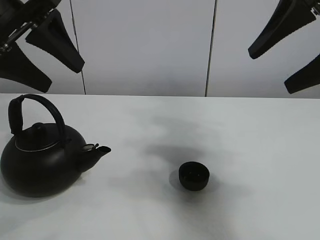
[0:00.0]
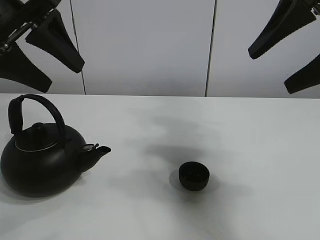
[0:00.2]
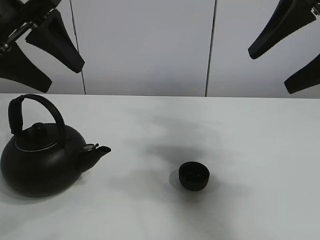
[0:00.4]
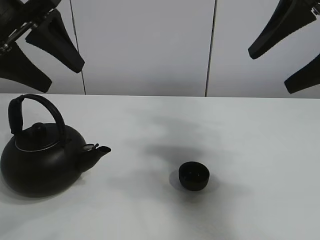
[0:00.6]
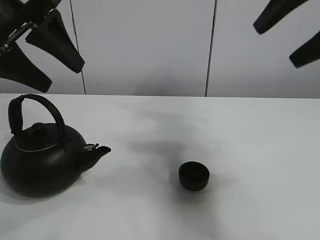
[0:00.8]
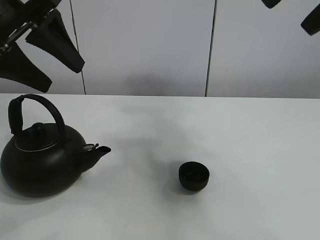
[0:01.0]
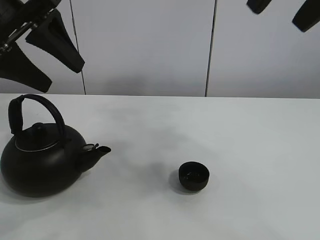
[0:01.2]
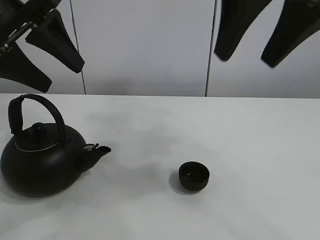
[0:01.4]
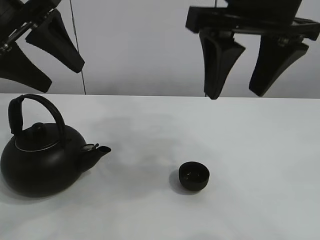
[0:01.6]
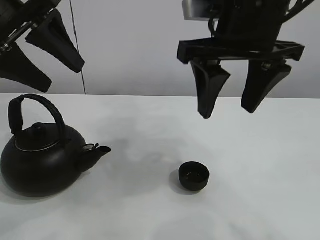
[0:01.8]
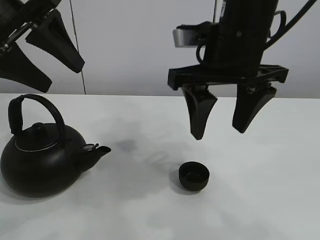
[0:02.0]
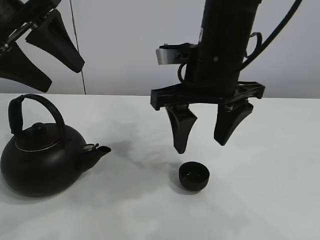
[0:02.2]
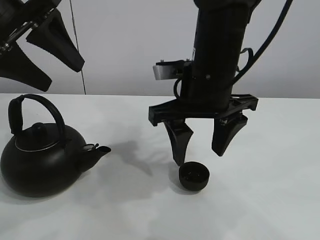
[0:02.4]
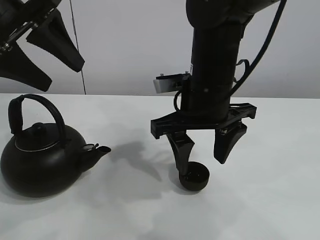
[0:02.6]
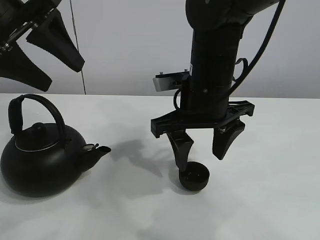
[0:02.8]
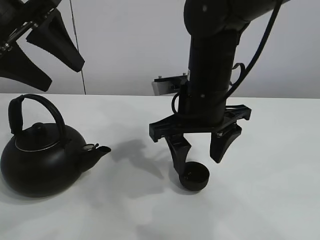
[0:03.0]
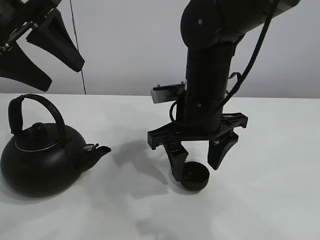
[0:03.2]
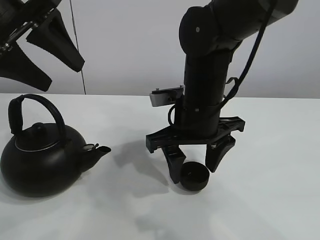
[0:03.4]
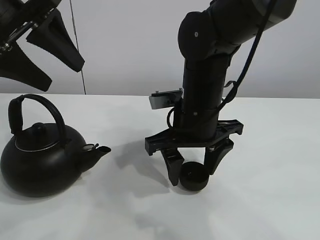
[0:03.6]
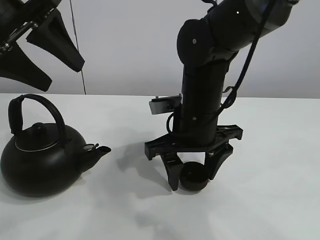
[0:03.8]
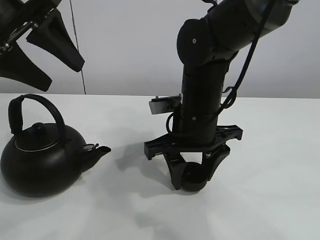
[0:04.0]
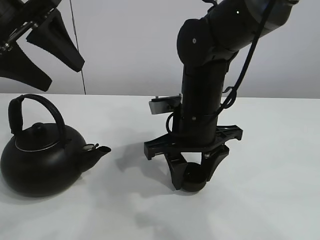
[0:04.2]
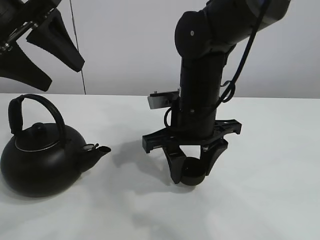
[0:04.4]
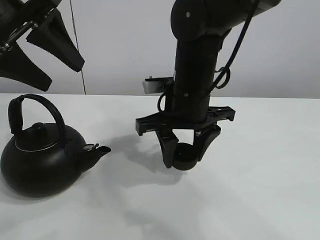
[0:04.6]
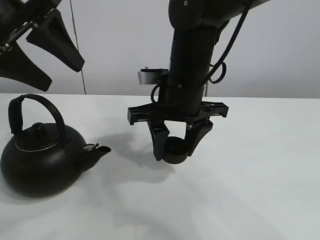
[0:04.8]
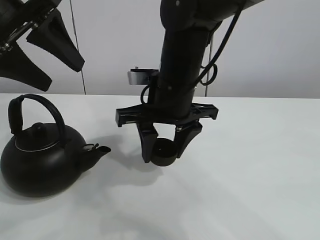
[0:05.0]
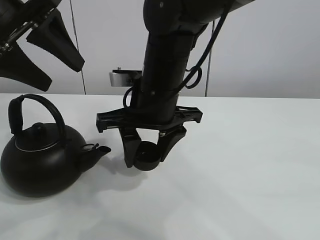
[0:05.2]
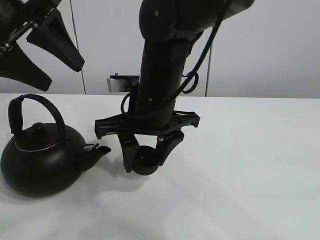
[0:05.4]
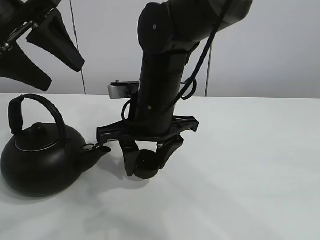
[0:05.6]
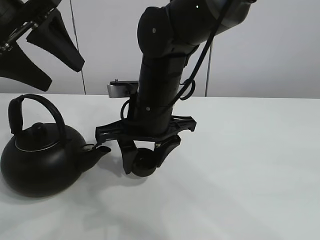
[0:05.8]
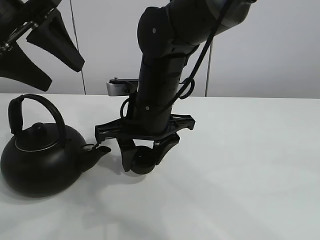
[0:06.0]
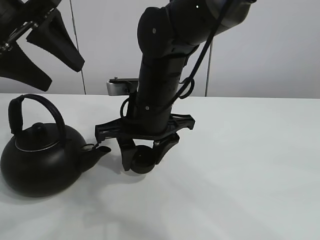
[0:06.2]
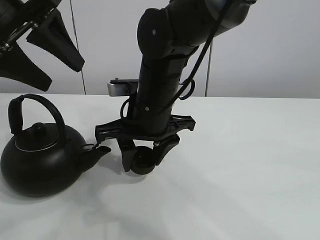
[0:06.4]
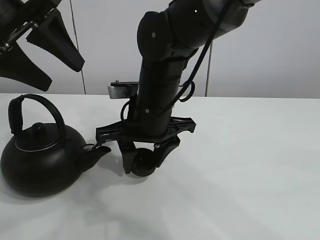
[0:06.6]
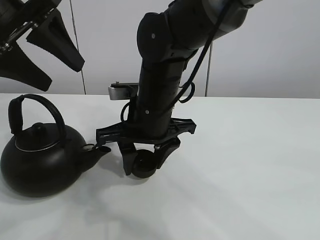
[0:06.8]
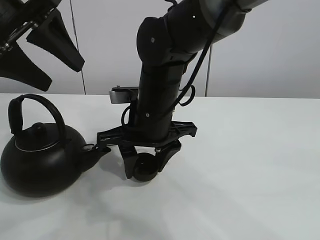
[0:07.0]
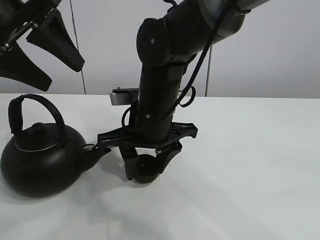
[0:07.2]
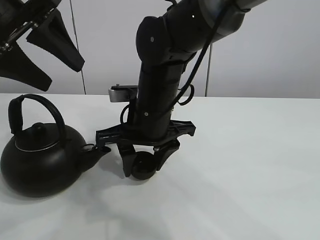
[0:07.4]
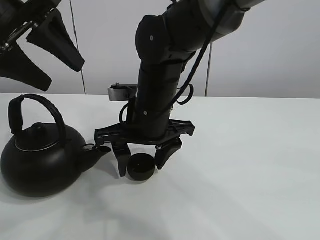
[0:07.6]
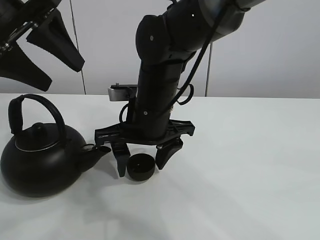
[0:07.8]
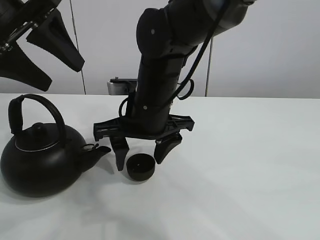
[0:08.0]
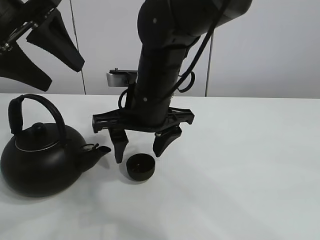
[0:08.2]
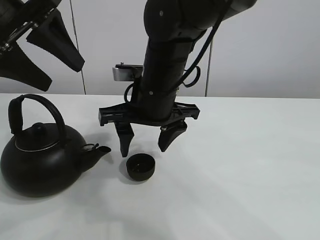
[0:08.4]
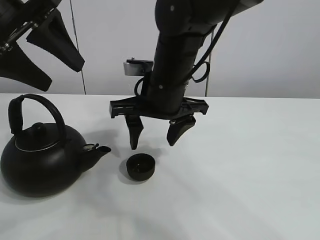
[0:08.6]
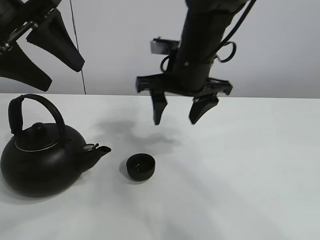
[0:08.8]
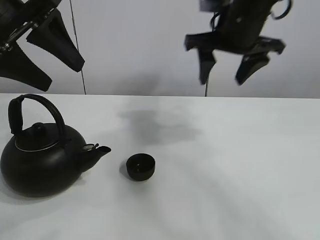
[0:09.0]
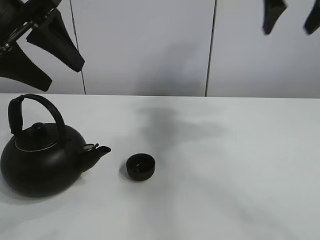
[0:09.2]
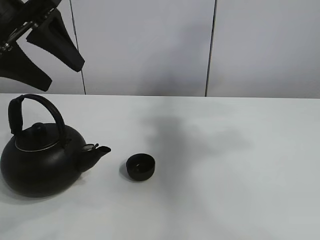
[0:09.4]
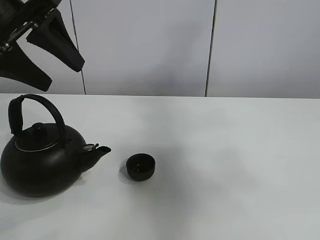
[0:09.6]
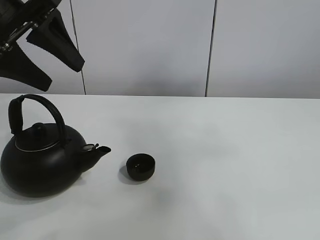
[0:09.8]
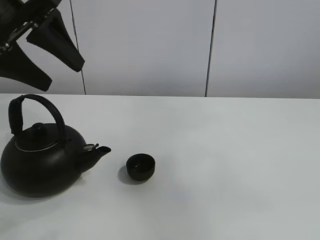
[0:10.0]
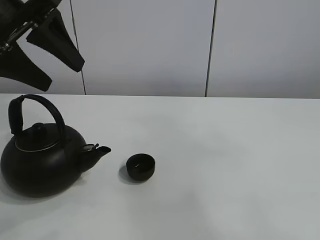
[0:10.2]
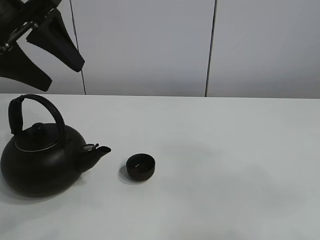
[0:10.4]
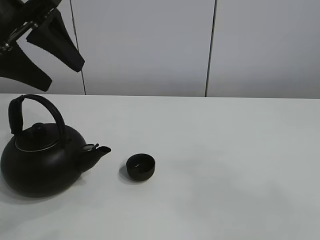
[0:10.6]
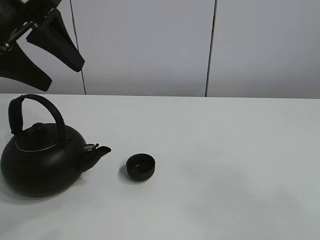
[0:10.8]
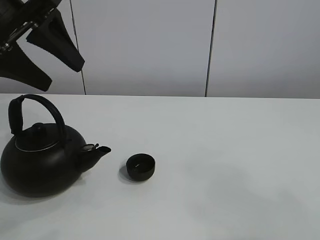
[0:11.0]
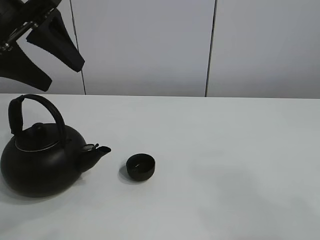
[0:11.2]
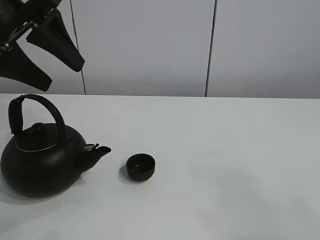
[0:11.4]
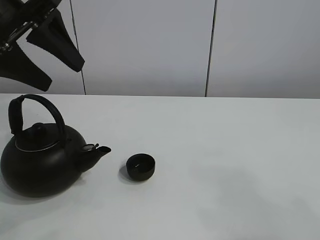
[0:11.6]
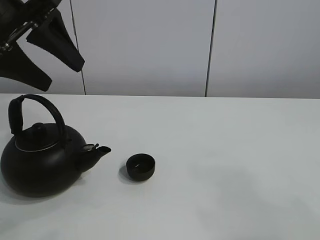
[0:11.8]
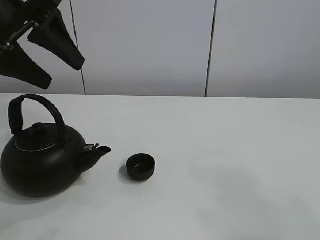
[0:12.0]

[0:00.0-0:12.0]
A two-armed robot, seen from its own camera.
Task of the whole recording: pour tea into the teacup.
Step, 0:00.0 to 0:04.2: Pick up the teacup with the right gripper.
Step, 0:04.4 to 0:07.6: Place the teacup in the center of view with the right gripper.
0:01.6 to 0:03.0: The right gripper is displaced downward by about 15 cm.
0:03.0 to 0:04.4: The right gripper closes its fingers.
0:04.4 to 0:06.0: The right gripper goes some 5 cm to the left.
0:06.0 to 0:07.6: The right gripper opens up.
0:07.6 to 0:09.0: The right gripper shifts about 20 cm to the right and upward.
0:09.0 to 0:10.4: The right gripper is displaced backward by roughly 40 cm.

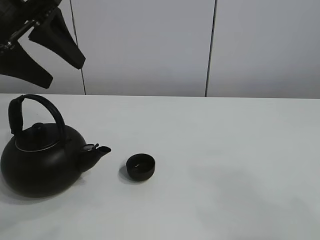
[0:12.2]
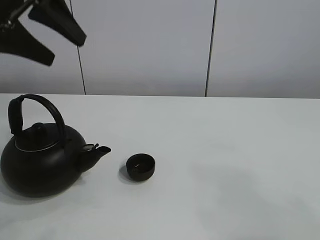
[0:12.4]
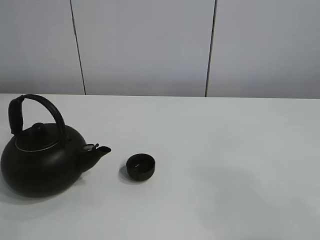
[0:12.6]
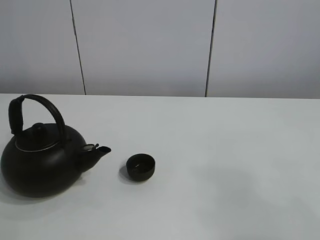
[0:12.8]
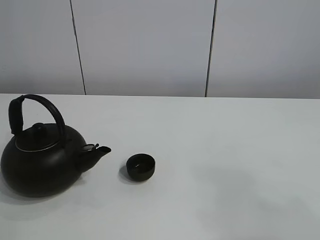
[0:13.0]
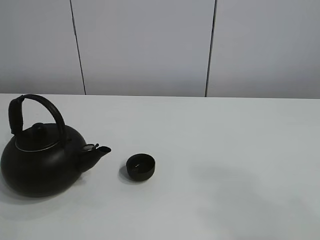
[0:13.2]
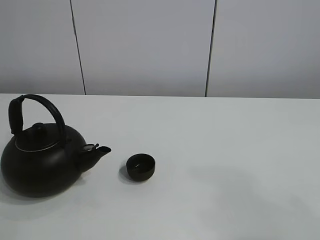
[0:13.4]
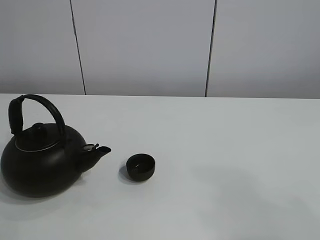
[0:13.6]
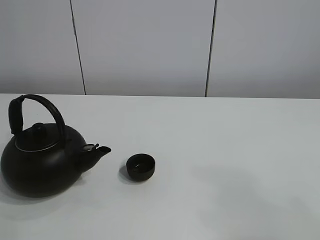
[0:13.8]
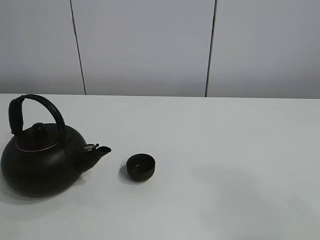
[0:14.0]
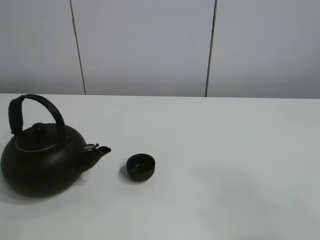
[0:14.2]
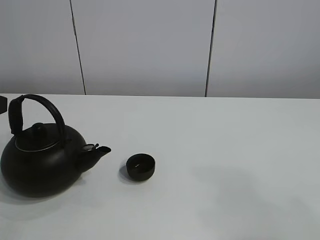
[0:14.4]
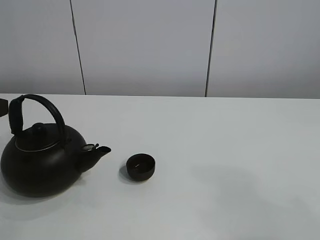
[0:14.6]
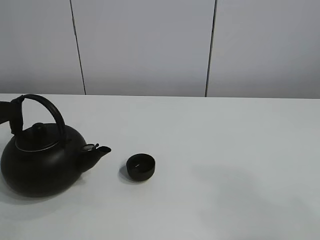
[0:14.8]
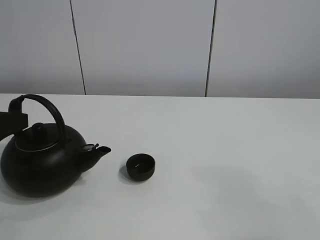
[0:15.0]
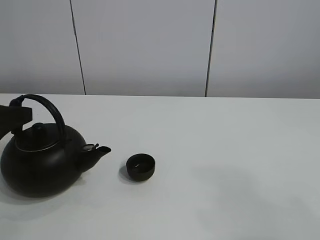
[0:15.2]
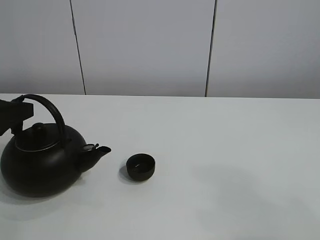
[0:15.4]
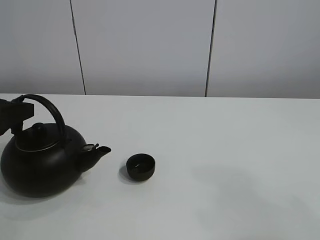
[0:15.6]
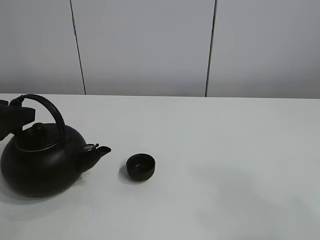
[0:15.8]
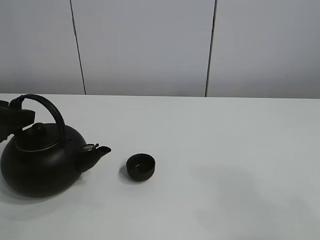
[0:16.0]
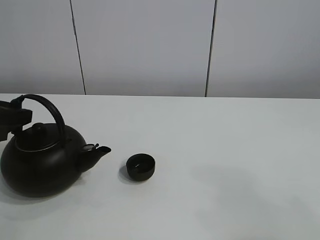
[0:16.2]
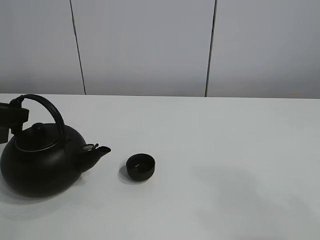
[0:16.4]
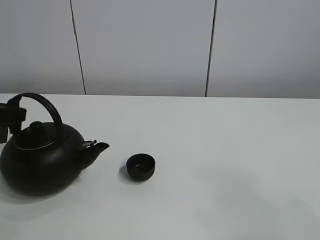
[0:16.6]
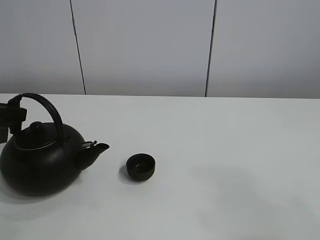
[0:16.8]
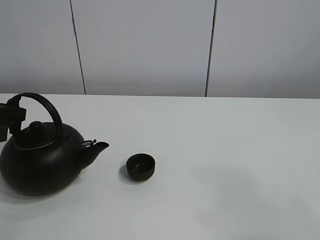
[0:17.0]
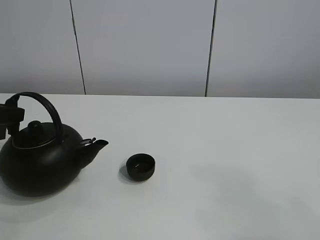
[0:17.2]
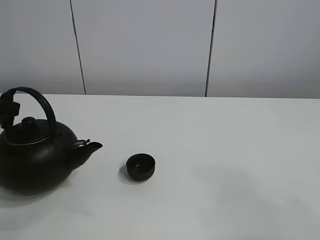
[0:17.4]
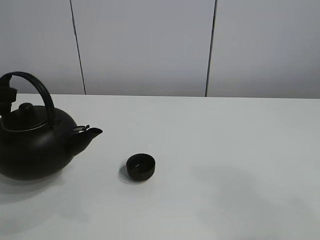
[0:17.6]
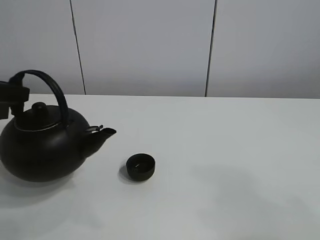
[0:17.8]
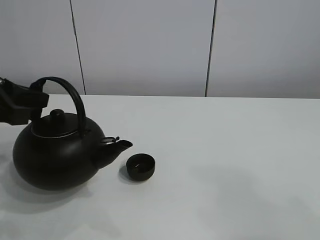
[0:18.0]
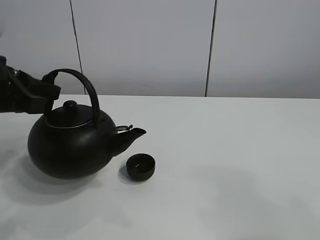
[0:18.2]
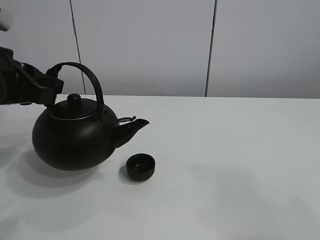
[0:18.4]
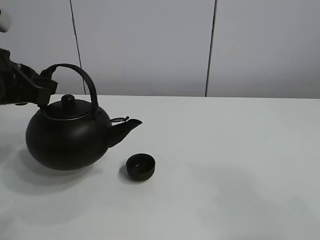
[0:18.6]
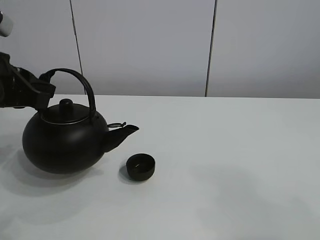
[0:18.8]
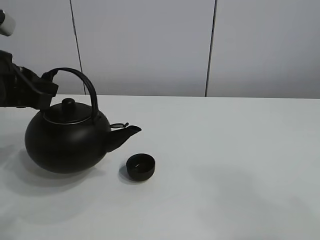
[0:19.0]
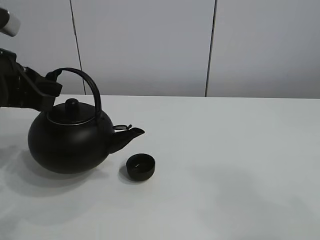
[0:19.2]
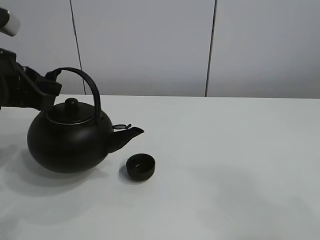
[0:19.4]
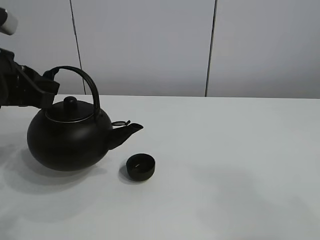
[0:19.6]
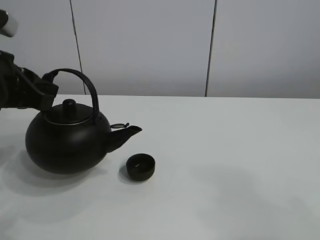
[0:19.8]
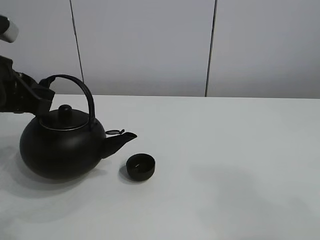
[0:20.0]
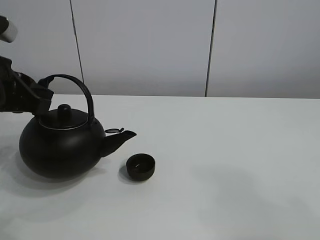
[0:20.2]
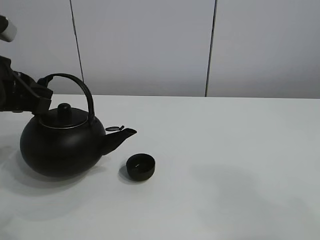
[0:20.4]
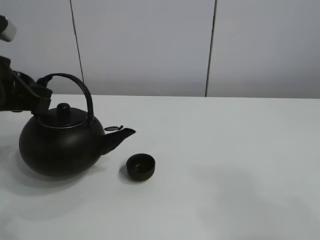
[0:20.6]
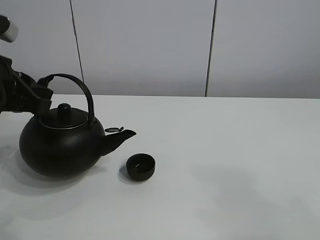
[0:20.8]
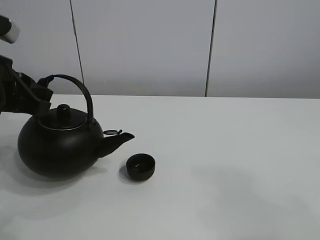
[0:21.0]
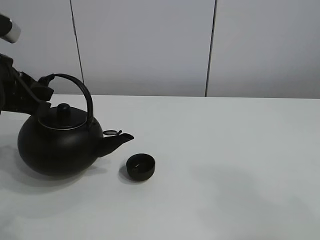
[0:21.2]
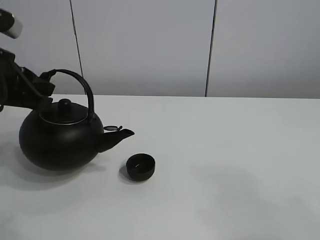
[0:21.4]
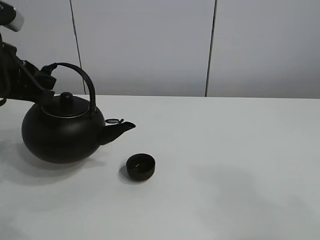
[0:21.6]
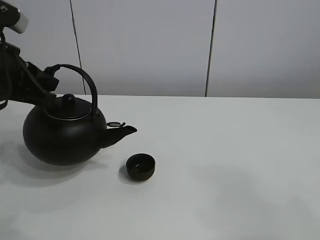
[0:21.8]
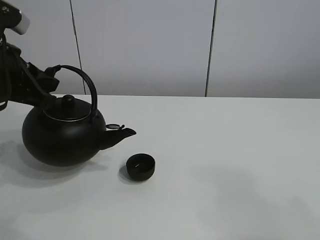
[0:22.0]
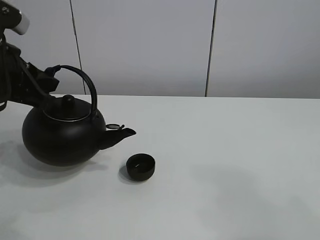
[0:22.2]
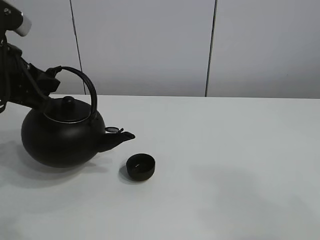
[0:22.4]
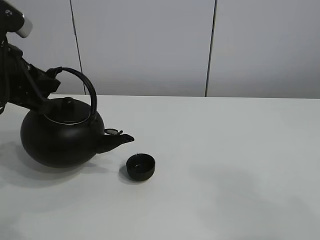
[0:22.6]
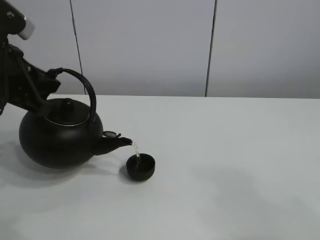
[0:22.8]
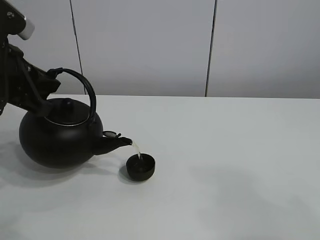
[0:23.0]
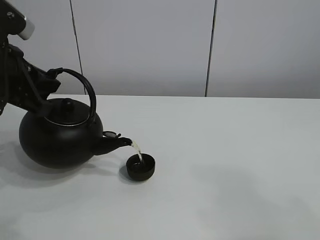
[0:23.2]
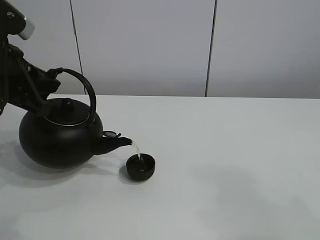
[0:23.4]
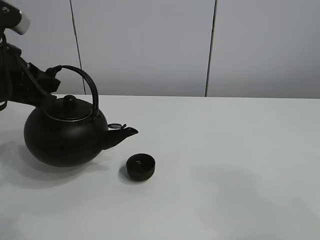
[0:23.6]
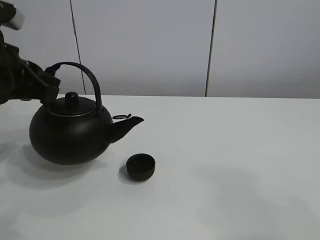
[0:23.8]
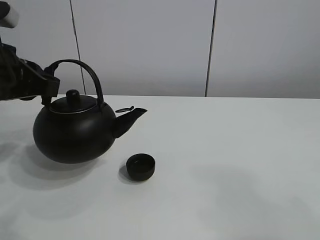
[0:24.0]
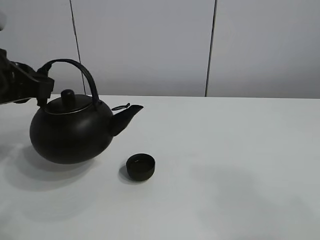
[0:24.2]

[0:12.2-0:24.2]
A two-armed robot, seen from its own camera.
Task of the whole recording: pour tea into the teacup.
Step, 0:12.2 to 0:17.2: Pick up the teapot with the left gripper.
Step, 0:17.4 to 0:23.6: Pour tea into the teacup with the left gripper.
0:12.2 to 0:13.8: The left gripper goes about 15 cm backward and to the left, and reaches approximately 15 cm upward, then returns.
0:13.8 to 0:15.2: The left gripper goes approximately 15 cm downward and forward.
0:15.2 to 0:16.6: The left gripper closes its fingers.
0:16.6 to 0:18.2: The left gripper travels to the right and upward by some 10 cm.
0:18.2 to 0:22.6: The grippers make only small movements.
